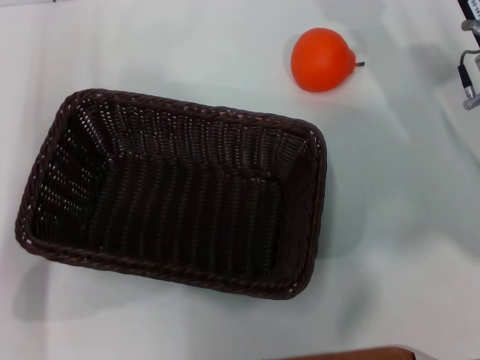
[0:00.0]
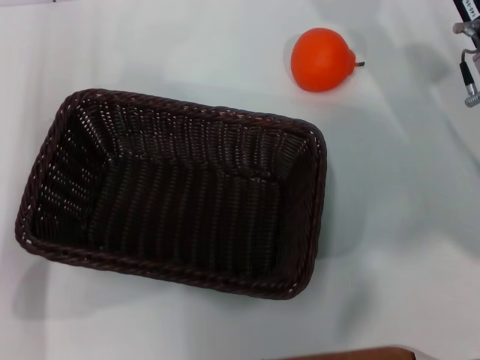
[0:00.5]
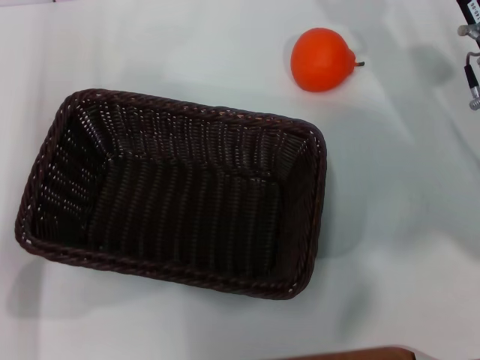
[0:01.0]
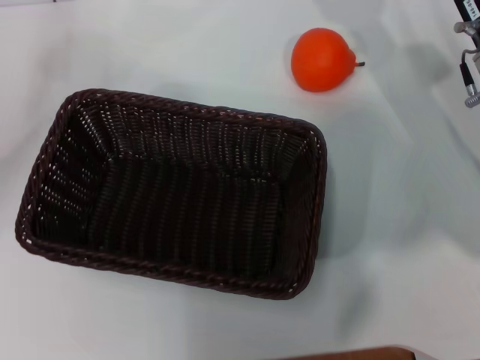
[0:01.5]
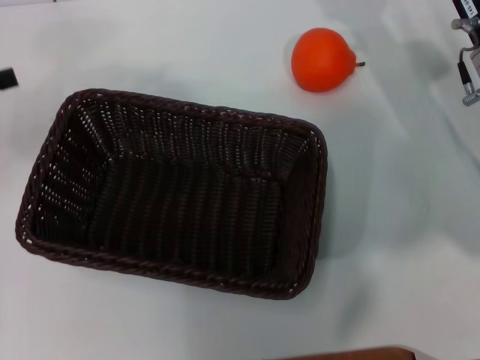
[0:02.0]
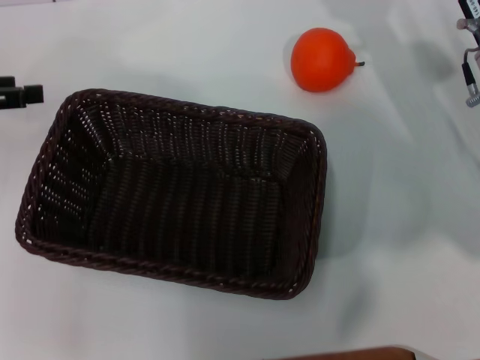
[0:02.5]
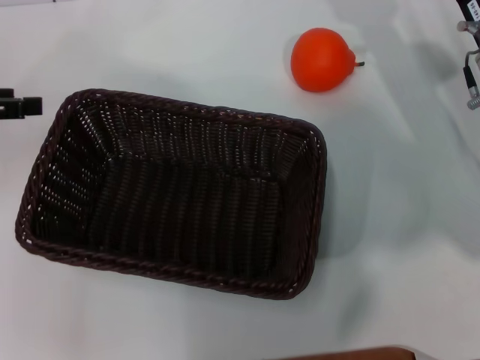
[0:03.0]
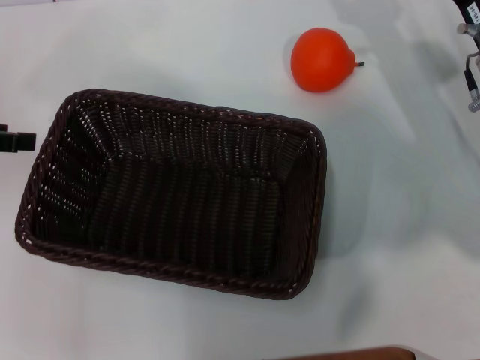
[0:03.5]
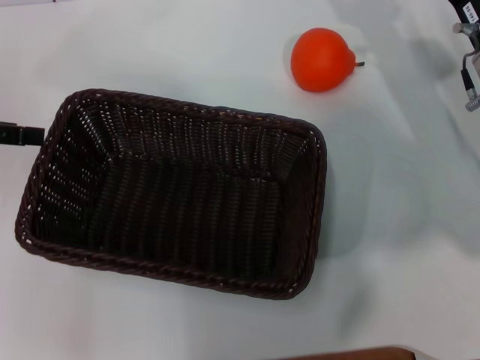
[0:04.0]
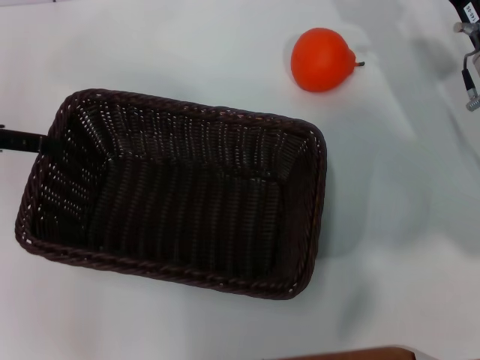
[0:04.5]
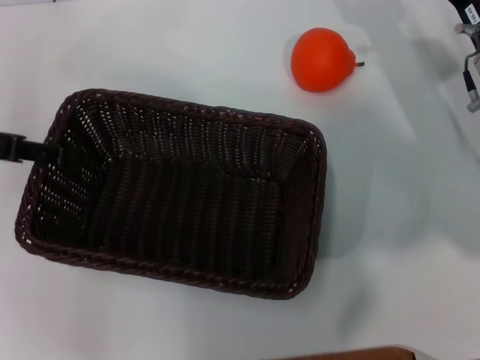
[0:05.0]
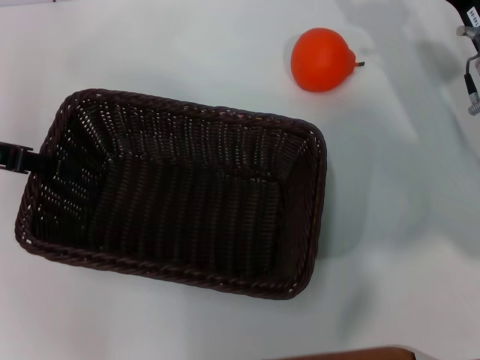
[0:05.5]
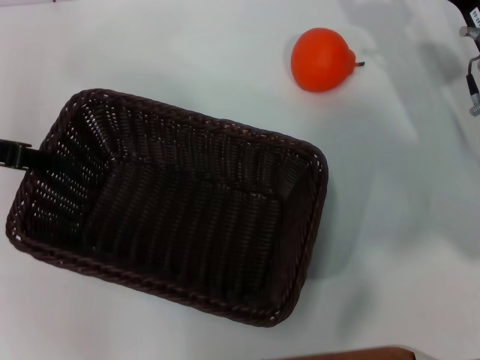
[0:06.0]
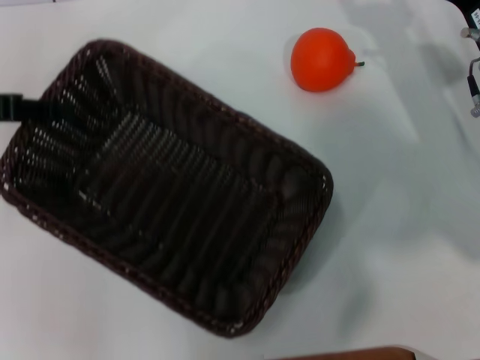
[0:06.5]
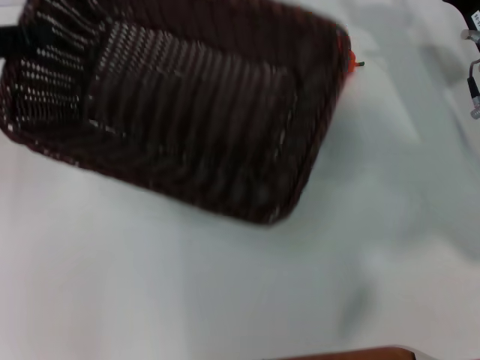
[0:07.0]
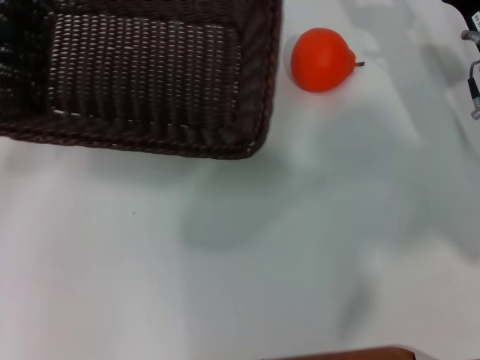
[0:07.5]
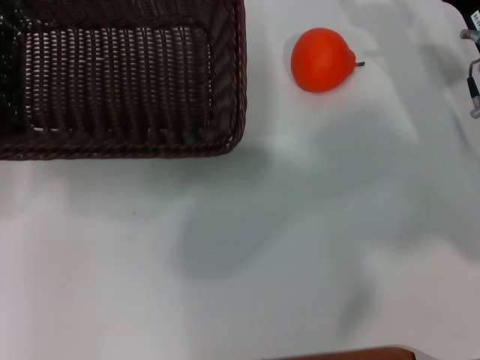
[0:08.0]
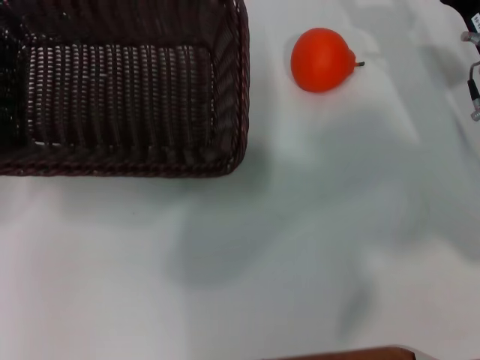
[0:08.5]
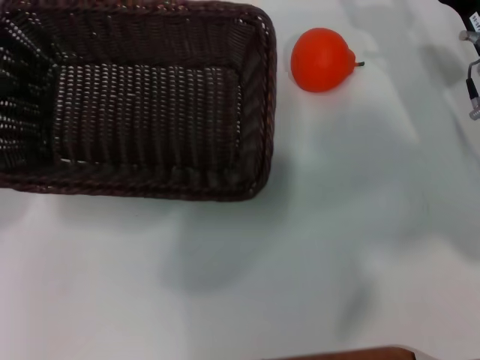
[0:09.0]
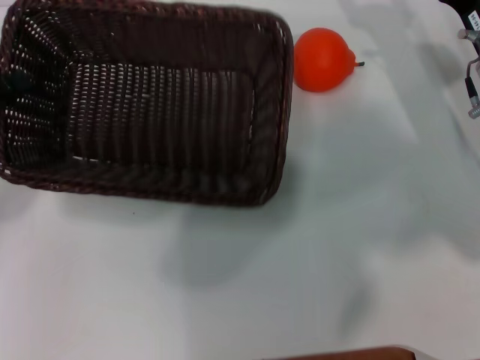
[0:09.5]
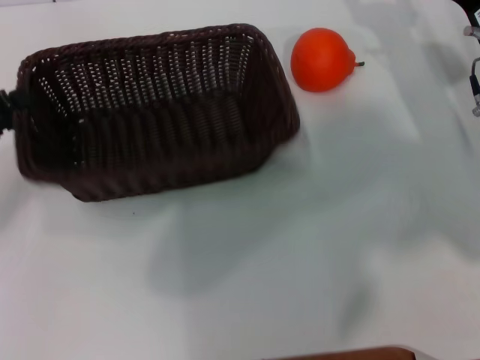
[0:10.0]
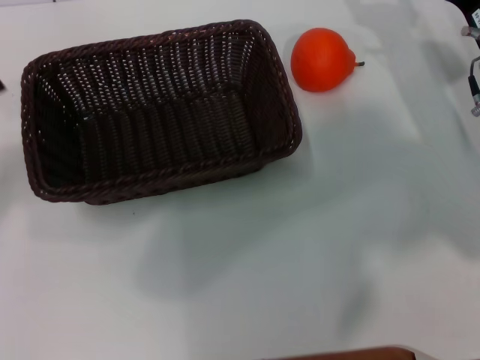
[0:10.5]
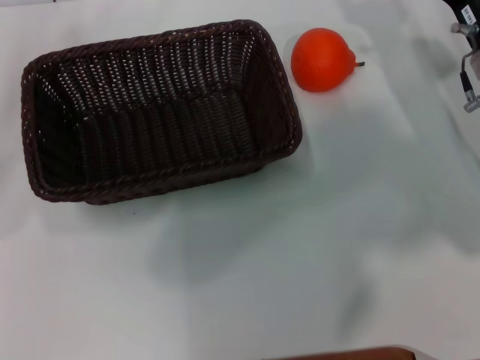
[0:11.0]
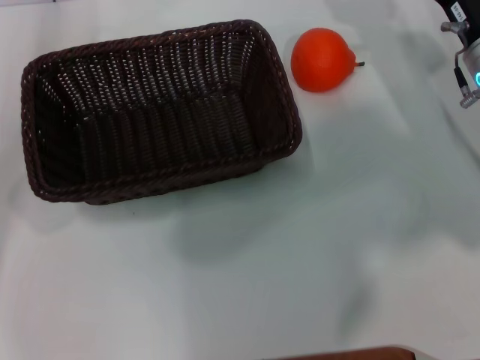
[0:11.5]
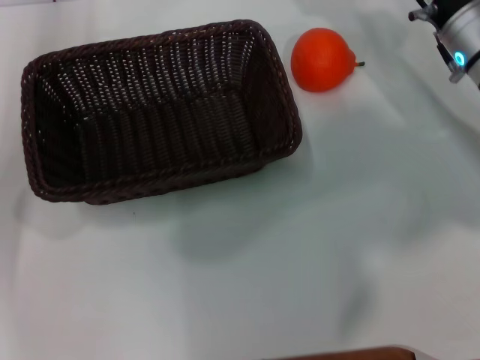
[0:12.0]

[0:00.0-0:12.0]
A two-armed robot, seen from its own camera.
Task of the whole recording: the left gripper pick up the black basket and place it horizontally in the middle of the table, the right gripper pick up the orange and place it into the black basket.
Step, 0:00.0 to 0:06.0: Pick up the dark basket with the left gripper.
Step, 0:06.5 to 0:10.0: Place the dark basket in the center of view with the left gripper.
0:00.0 to 0:02.0: The left gripper shifts about 15 cm to the left and upward.
0:02.0 to 0:04.0: The left gripper shifts by approximately 5 cm.
0:04.0 to 0:06.0: The left gripper closes.
0:06.0 to 0:08.0: The left gripper ends up roughly 5 cm from where it was.
0:08.0 to 0:10.0: The left gripper opens its fingers.
0:10.0 to 0:12.0: The left gripper shifts roughly 10 cm forward and to the right.

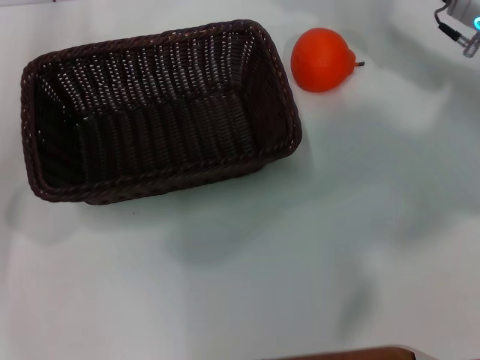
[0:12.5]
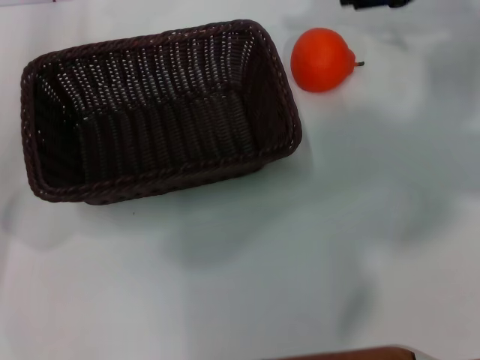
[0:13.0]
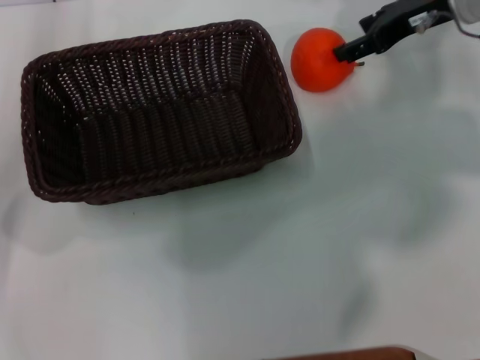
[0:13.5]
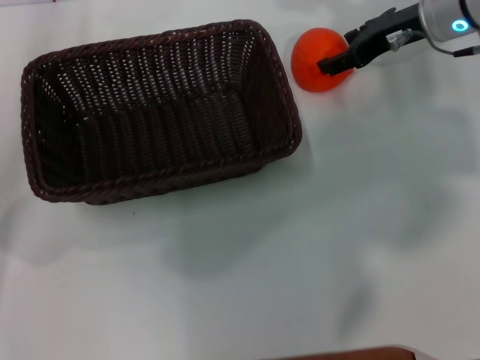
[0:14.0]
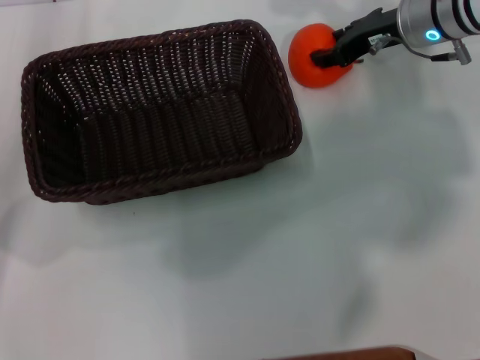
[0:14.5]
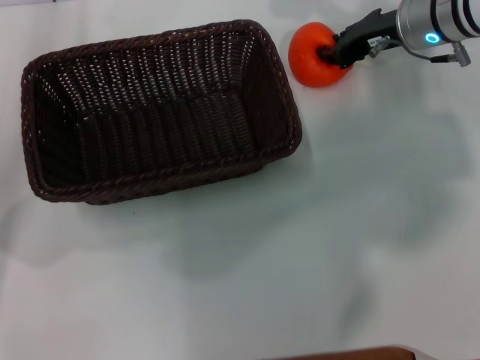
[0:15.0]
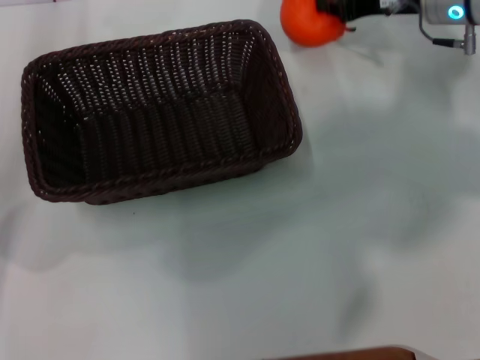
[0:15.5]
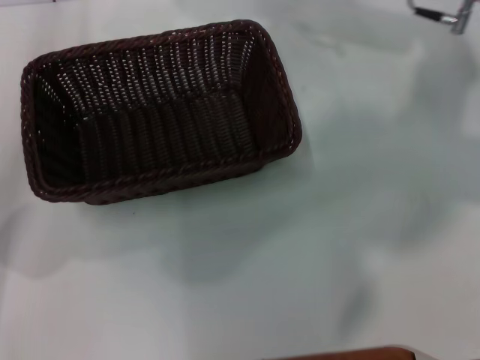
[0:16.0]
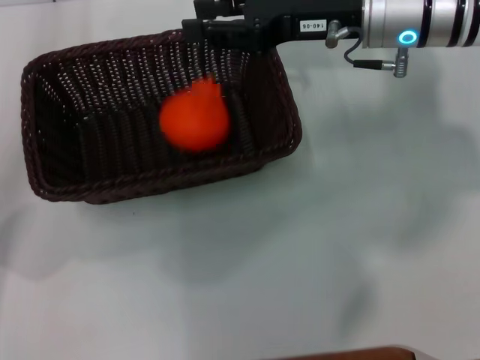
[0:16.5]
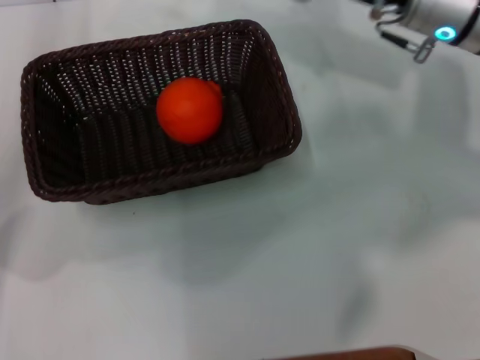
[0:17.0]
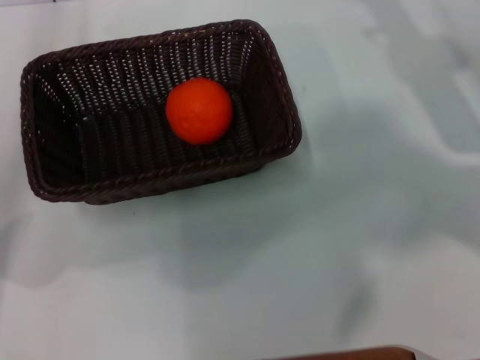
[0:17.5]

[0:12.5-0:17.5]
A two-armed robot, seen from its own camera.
Task of the whole recording: the left gripper pick up the black basket and place it horizontally in the middle of the table, the right gripper pick up the orange and place it into the black basket.
Step, 0:12.5 to 0:15.0: Pick up the orange with the right gripper.
Step, 0:15.5 to 0:16.0: Place the orange into the dark basket with the right gripper.
0:12.5 to 0:15.0: The right gripper changes place by approximately 5 cm, and closes its fingers.
0:15.0 to 0:17.5: The right gripper is displaced backward and to the right by about 10 cm, and opens.
